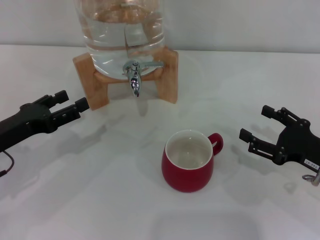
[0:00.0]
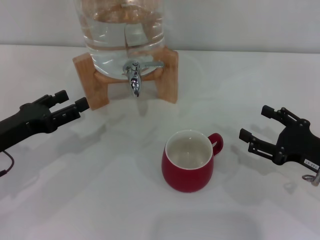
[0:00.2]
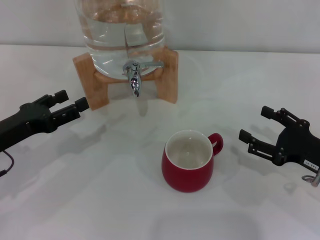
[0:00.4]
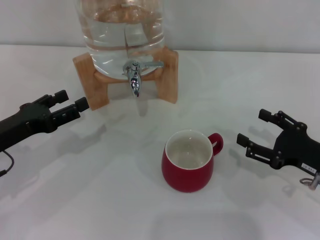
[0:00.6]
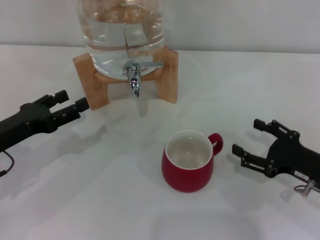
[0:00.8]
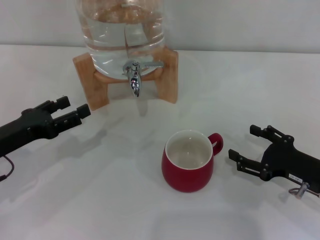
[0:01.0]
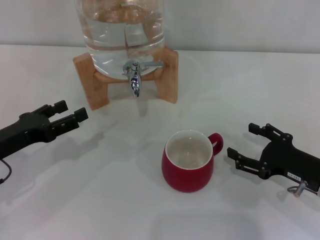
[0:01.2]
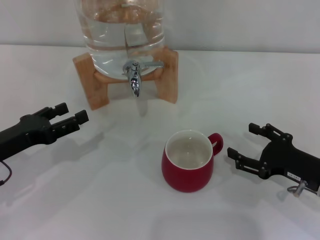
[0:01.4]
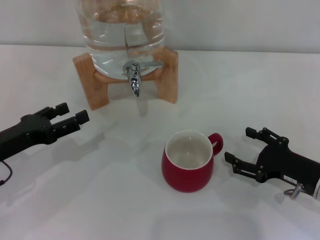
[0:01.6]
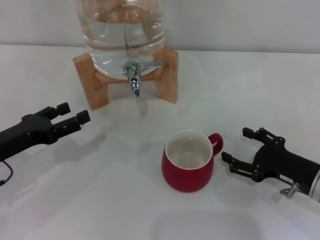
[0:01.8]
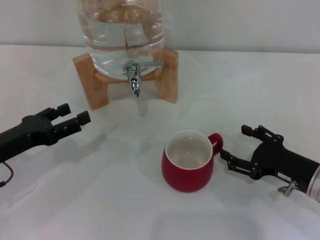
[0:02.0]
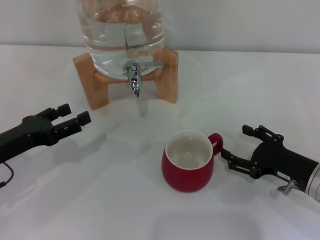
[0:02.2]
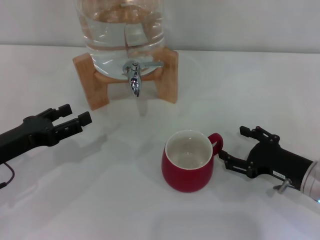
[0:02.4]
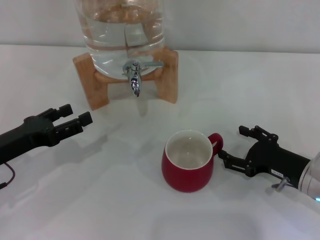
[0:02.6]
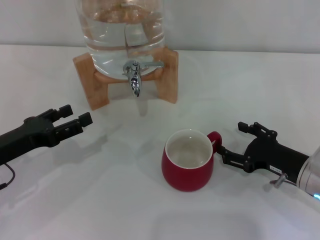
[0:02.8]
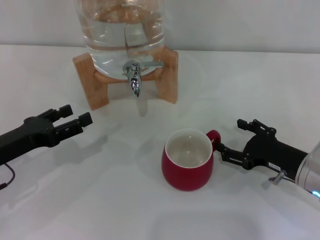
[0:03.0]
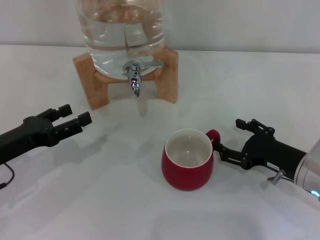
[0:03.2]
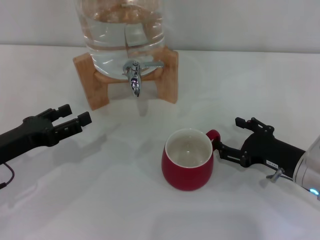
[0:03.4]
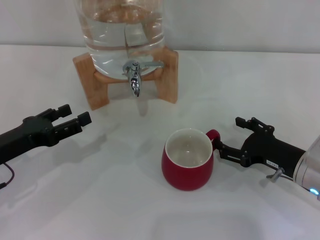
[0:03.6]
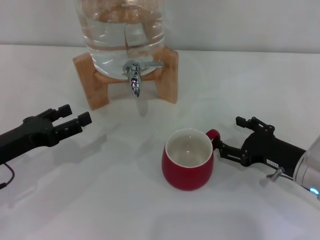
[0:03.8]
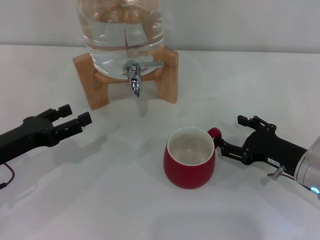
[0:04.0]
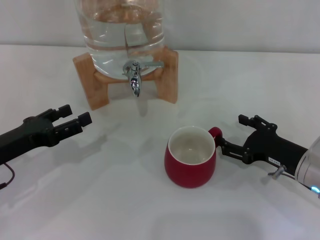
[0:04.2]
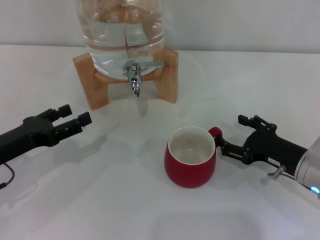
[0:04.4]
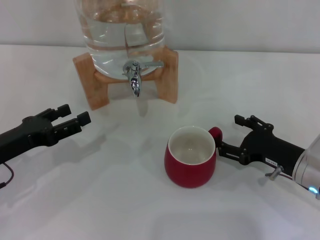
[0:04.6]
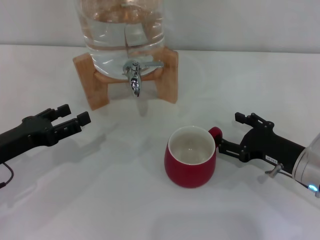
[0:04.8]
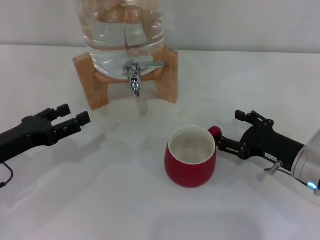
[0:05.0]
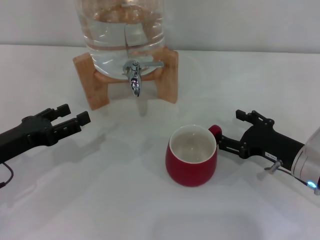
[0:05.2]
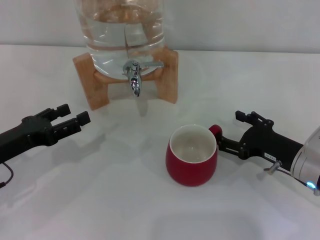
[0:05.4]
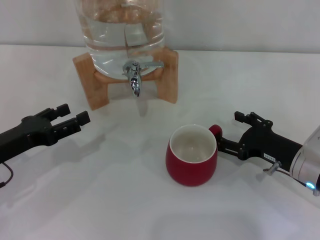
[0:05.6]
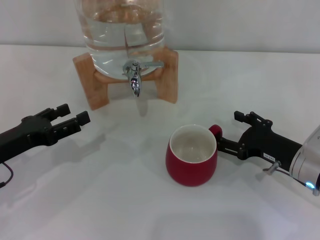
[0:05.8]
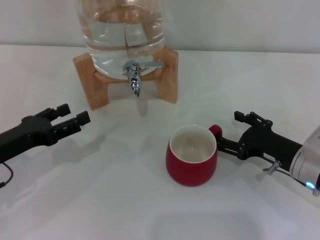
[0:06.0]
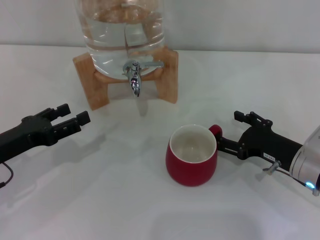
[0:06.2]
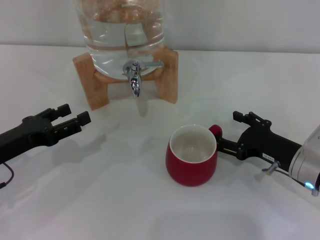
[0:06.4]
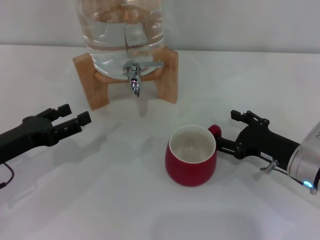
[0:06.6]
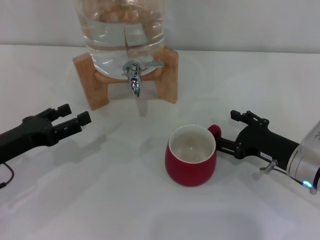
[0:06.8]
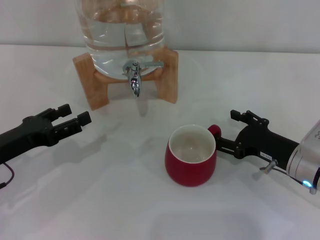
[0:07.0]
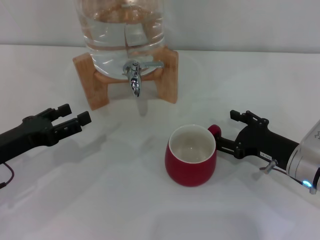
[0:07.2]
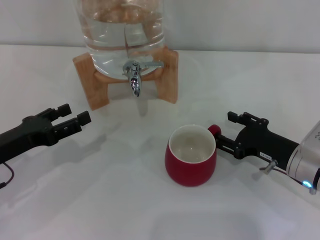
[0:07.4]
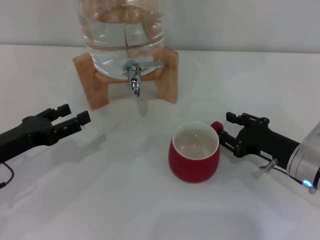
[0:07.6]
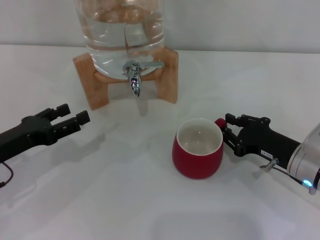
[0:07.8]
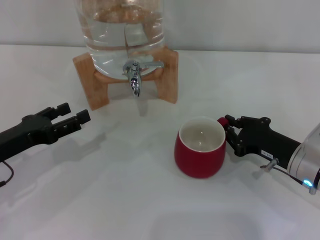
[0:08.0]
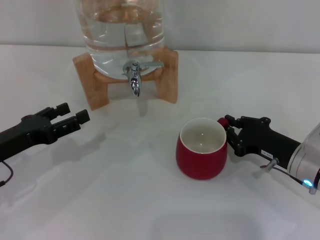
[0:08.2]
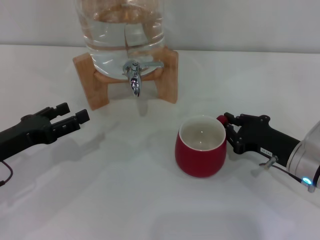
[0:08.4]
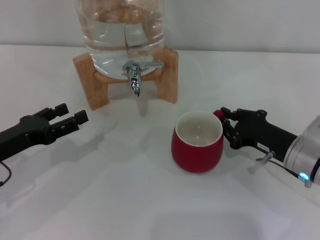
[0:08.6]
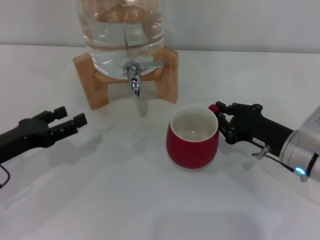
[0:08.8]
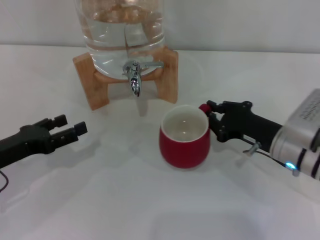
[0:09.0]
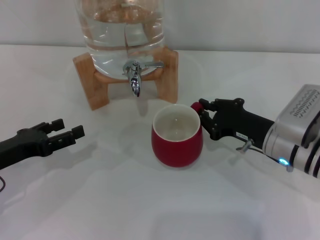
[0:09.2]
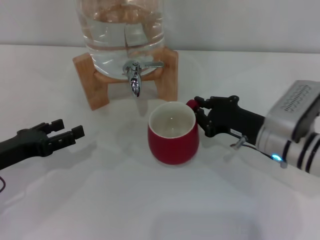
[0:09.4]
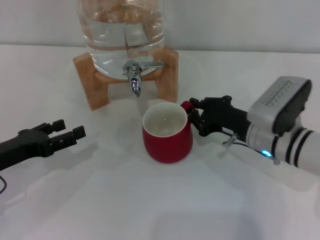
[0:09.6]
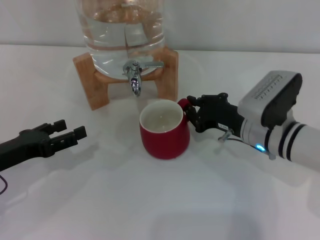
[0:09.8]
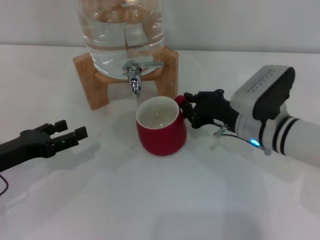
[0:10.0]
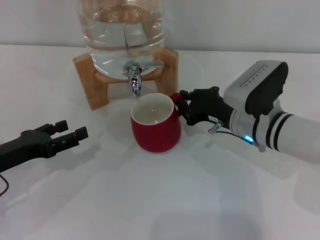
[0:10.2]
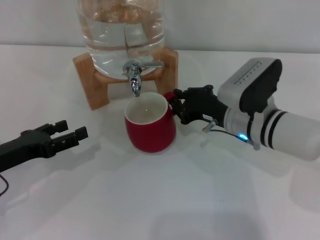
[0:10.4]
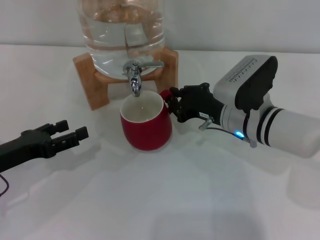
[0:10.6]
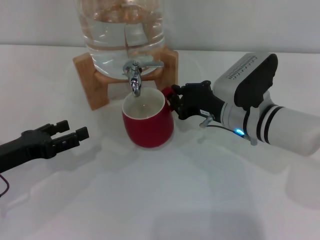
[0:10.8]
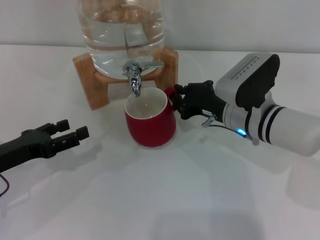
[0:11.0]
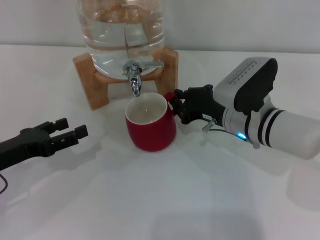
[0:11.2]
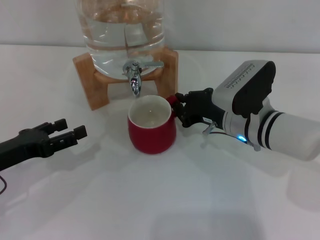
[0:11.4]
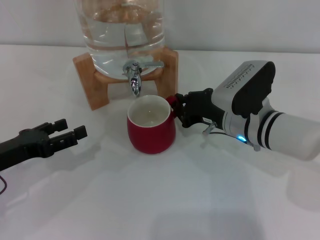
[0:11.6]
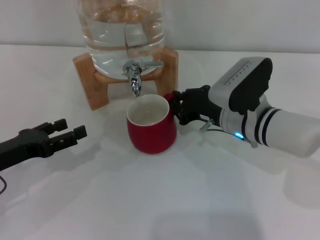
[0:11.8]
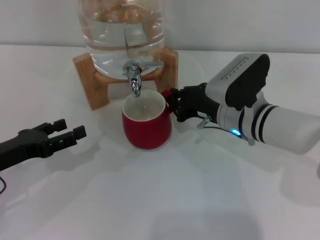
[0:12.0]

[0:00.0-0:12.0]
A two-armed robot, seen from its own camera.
Task of the whole recording: the right gripper pick up the red cup and place it horizontally under the faucet, the left gripper turn on the faucet to fill the cup, and then turn off the faucet.
0:00.0 to 0:03.0: There are only small adjustments of the grippers.
0:03.0 to 0:06.0: Both grippers stay about where they are.
0:06.0 to 0:07.6: Both grippers stay about where they are.
0:07.6 to 0:09.0: The right gripper closes.
0:09.0 to 0:10.4: The right gripper travels to the left by some 5 cm.
0:10.4 to 0:12.0: Neither gripper changes place.

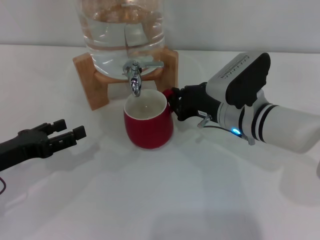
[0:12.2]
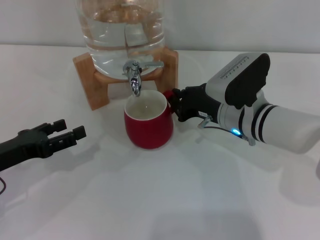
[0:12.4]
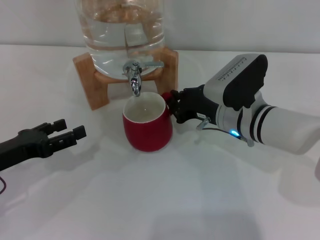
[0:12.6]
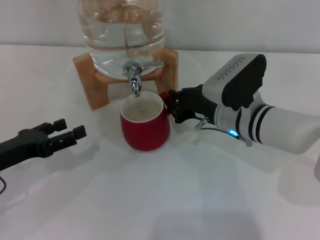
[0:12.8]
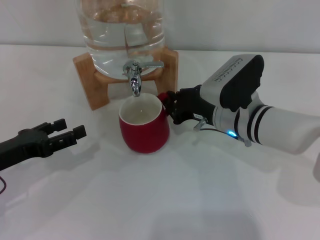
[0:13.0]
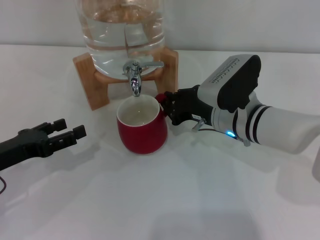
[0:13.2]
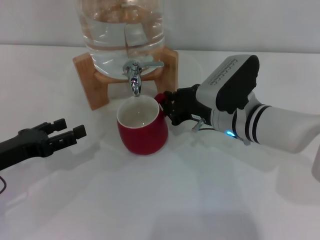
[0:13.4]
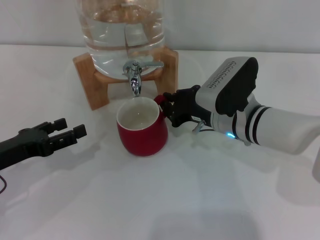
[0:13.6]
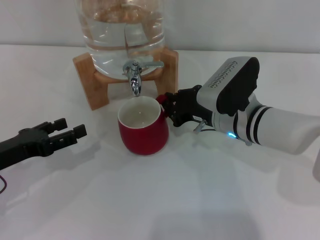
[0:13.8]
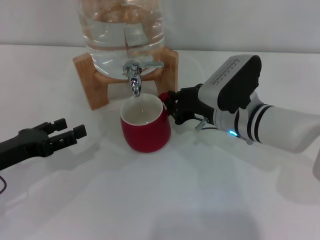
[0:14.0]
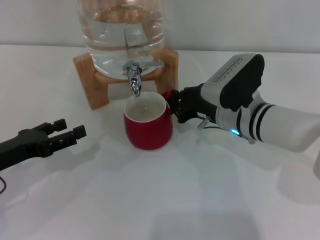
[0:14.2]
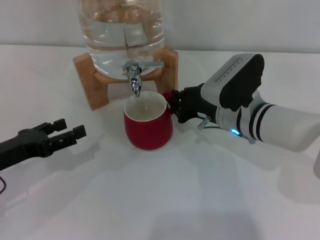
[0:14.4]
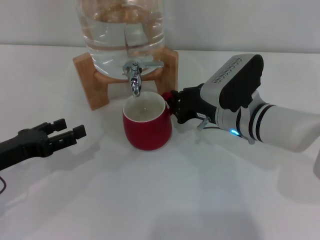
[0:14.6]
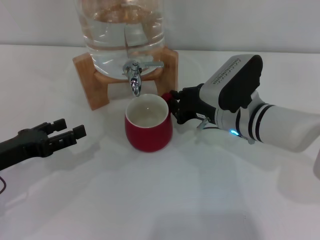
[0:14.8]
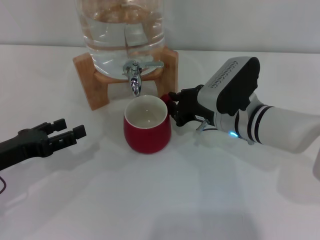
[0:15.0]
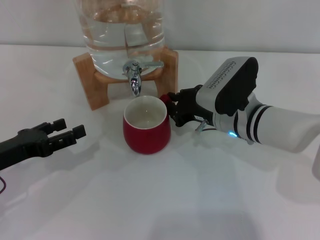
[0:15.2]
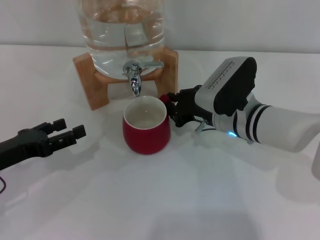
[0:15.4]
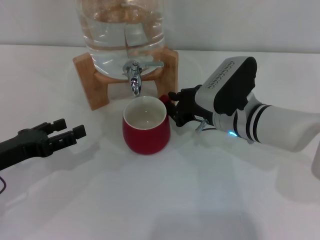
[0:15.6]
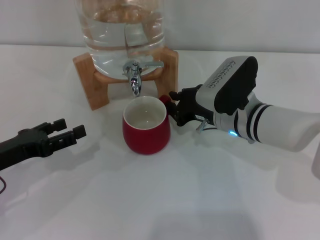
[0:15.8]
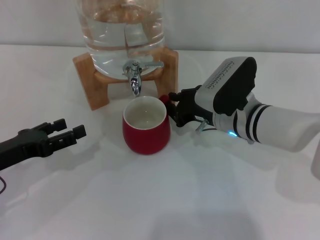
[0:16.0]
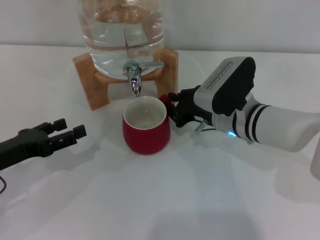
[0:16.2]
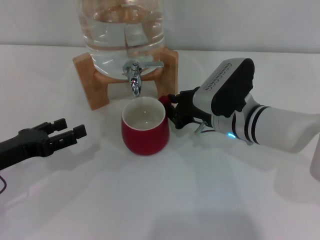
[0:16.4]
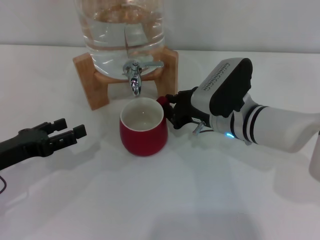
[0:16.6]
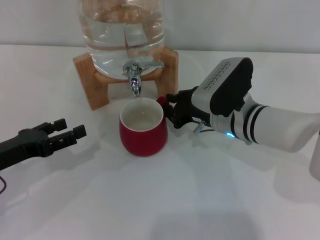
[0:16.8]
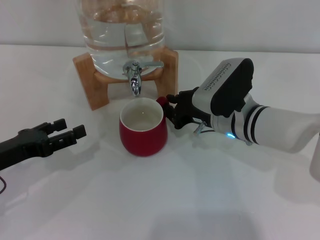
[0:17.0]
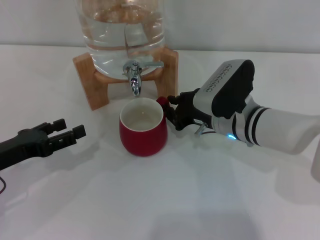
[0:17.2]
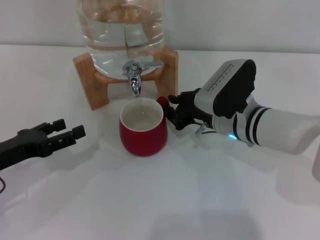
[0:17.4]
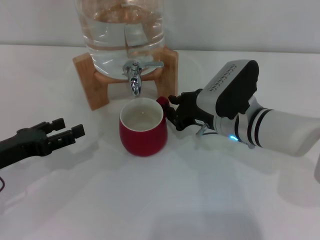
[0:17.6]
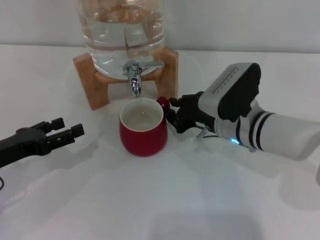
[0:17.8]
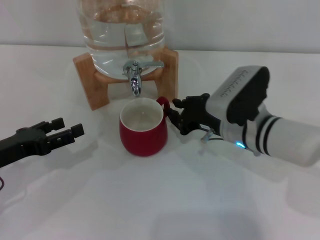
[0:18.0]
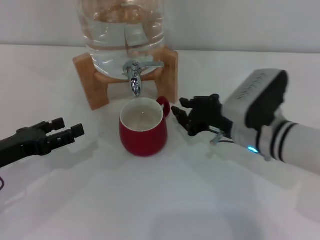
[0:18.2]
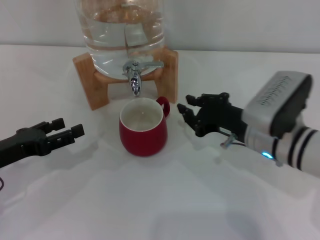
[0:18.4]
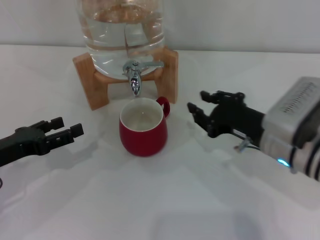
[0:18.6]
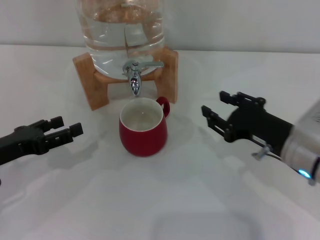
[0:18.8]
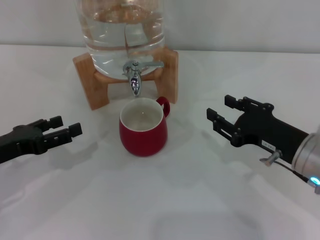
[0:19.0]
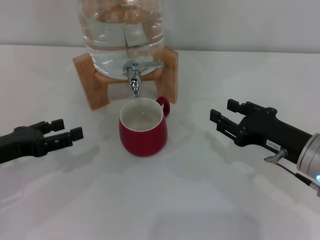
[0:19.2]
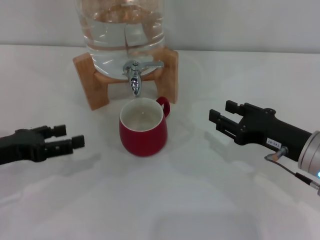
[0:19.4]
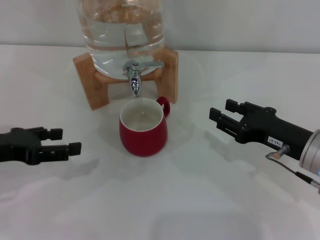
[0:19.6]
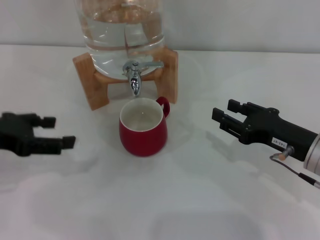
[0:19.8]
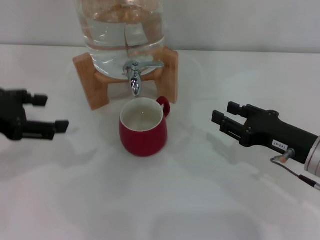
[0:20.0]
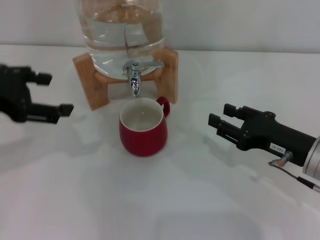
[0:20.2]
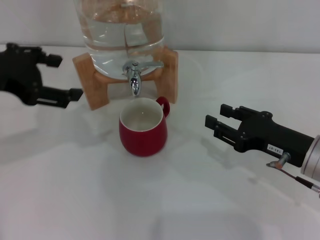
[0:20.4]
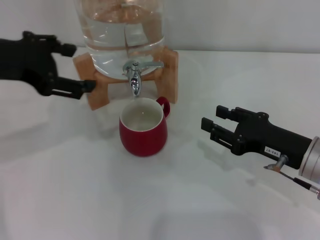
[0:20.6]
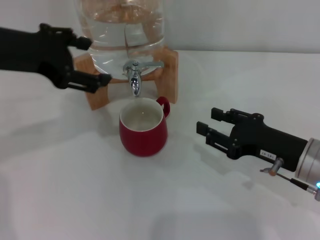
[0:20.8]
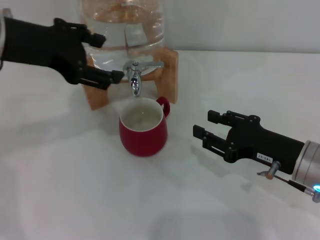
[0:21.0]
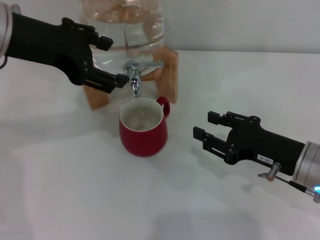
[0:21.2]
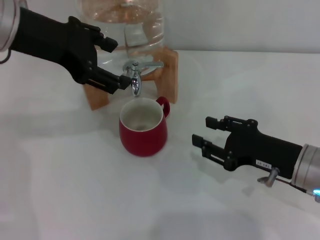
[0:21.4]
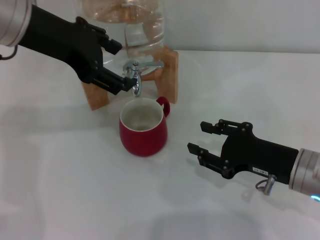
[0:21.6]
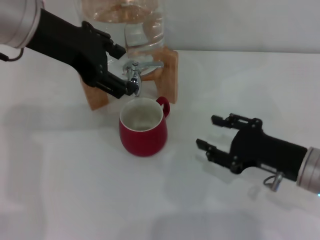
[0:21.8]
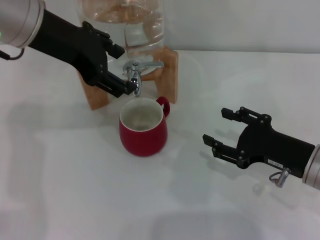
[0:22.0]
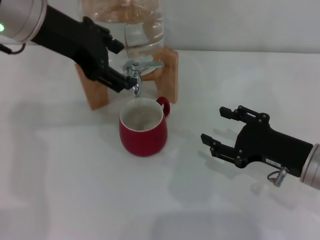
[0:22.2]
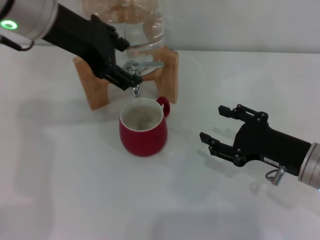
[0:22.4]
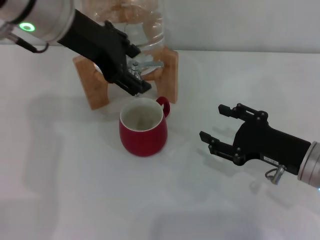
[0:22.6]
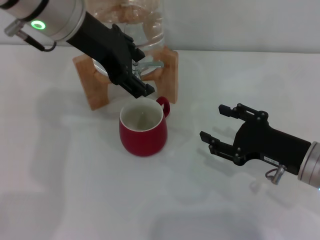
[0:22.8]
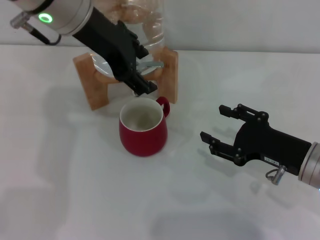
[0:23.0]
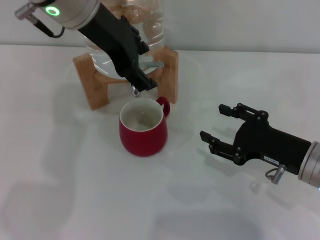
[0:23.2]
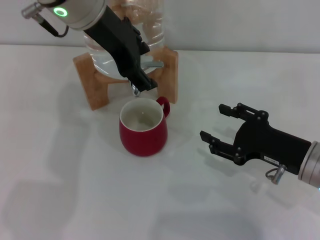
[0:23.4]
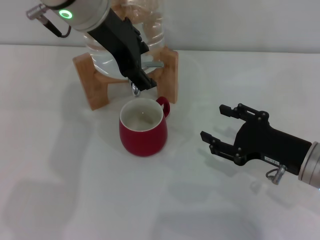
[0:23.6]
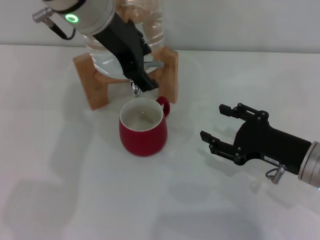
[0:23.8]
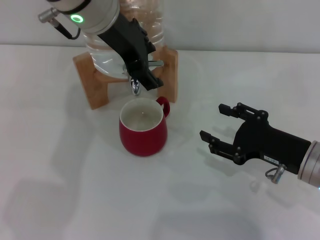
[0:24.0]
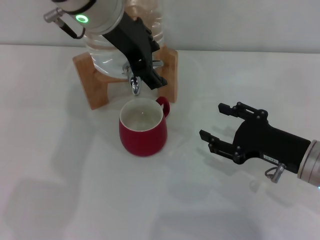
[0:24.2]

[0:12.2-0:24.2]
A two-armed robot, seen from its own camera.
Task of the whole recording: the right gripper pick up the red cup and place it horizontally under the faucet, the left gripper turn on the faucet to fill the cup, and then turn off the faucet.
Step, 0:12.2 to 0:18.4: Move the cup beneath the water dispenser nozzle with the right gripper.
0:12.2 to 0:13.8: There are only small adjustments of the grippers.
0:13.8 to 0:16.6: Neither gripper changes place.
0:16.6 to 0:18.2: The grippers make only small movements.
0:18.2 to 0:19.8: The right gripper goes approximately 10 cm to the right and backward, and opens; the left gripper moves upward, some 10 cm.
0:19.8 to 0:21.2: The left gripper travels upward, to the right and forward by roughly 15 cm.
0:21.2 to 0:22.6: The left gripper heads to the right, covering some 5 cm.
0:22.6 to 0:24.2: The left gripper moves to the right, some 5 cm.
